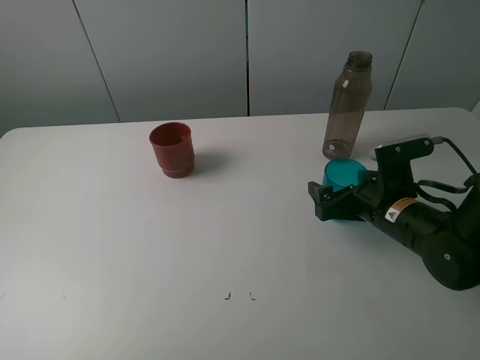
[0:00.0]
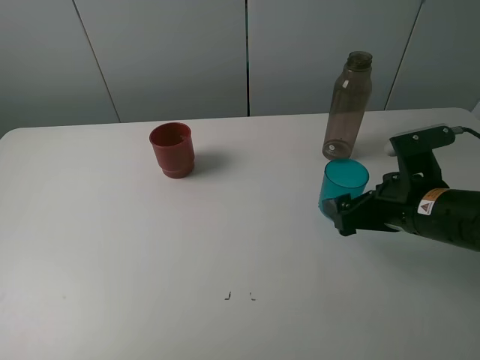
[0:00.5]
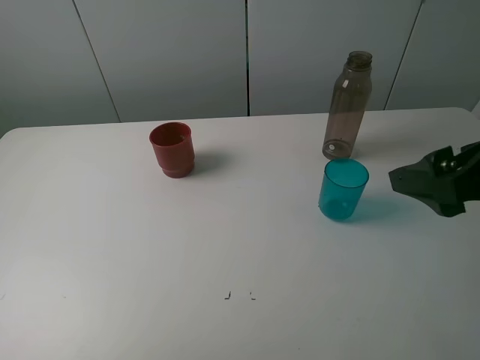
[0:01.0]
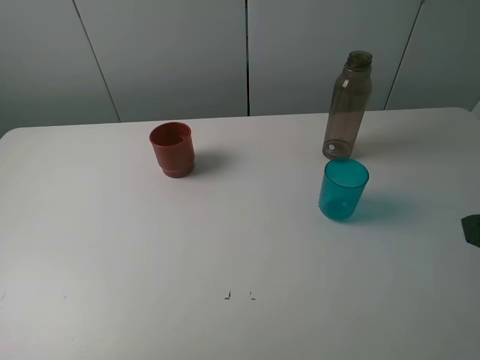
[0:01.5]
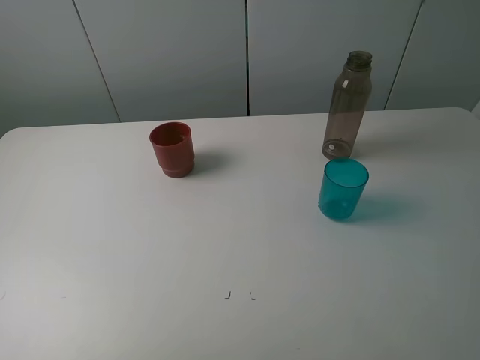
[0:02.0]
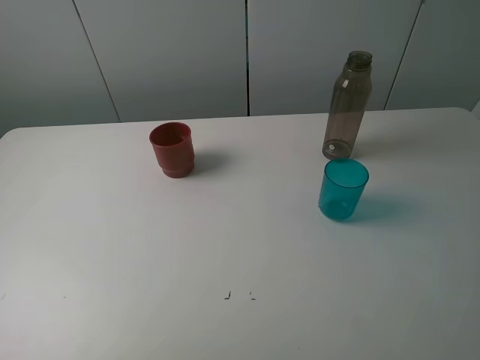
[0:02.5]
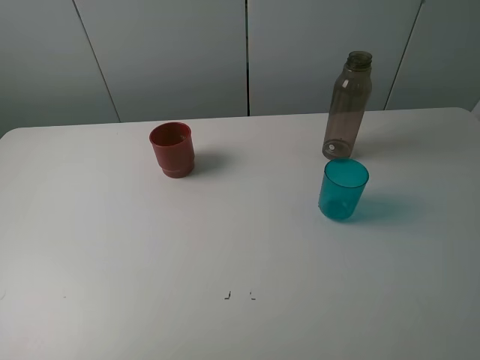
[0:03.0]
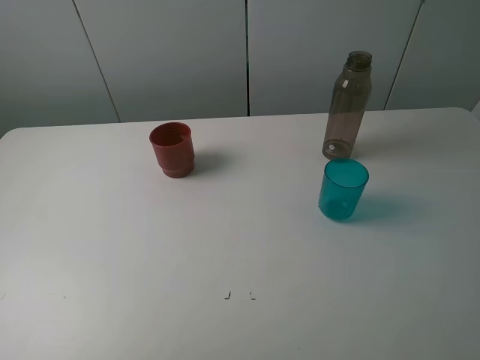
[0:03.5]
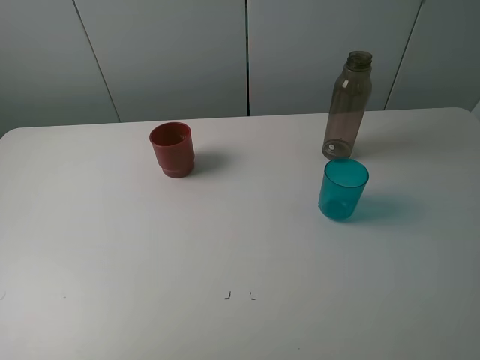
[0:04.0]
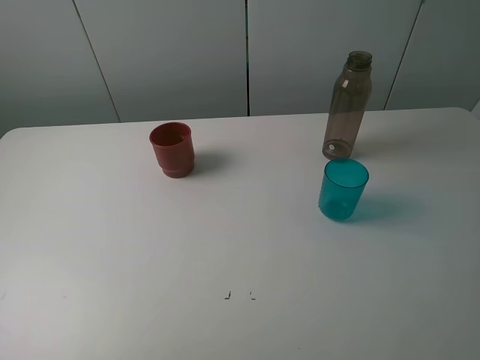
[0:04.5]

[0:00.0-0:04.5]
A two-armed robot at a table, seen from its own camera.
Task of the whole recording: pick up the bottle and pour water into the cup, then pick up the cup containing water and pour it into another cup.
0:00.0 to 0:02.0: The right gripper shifts some 30 cm backward and upward.
